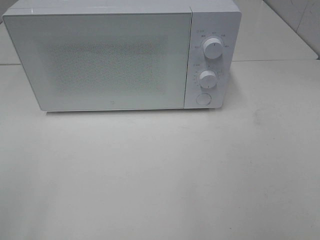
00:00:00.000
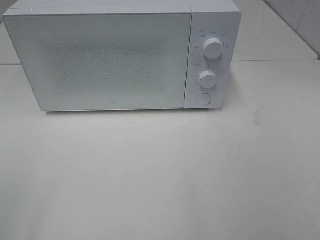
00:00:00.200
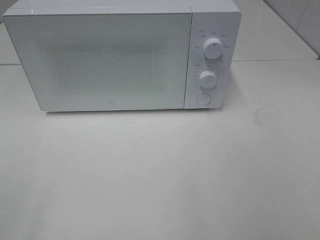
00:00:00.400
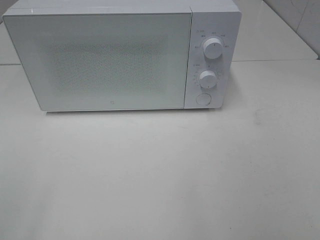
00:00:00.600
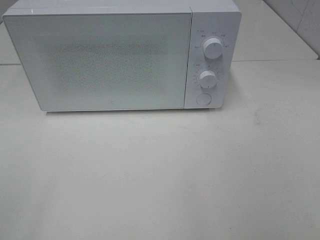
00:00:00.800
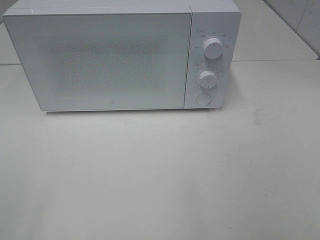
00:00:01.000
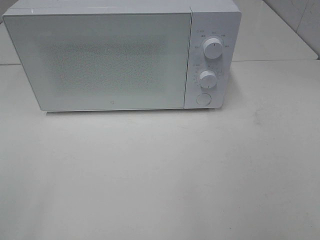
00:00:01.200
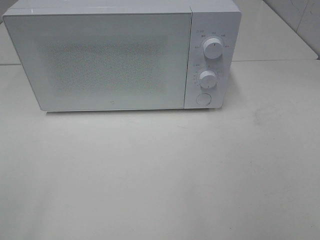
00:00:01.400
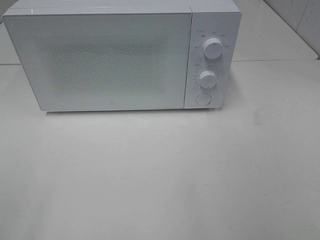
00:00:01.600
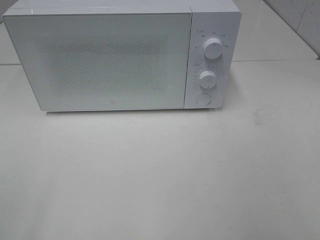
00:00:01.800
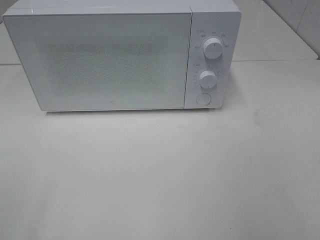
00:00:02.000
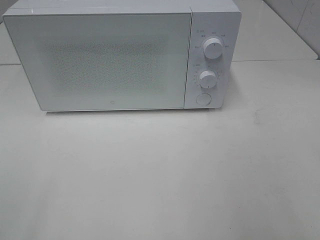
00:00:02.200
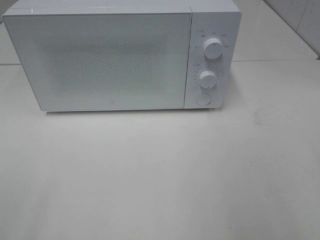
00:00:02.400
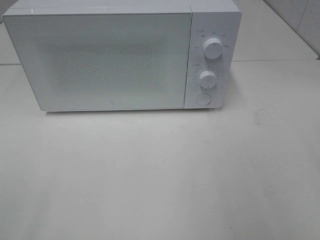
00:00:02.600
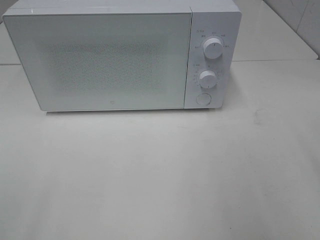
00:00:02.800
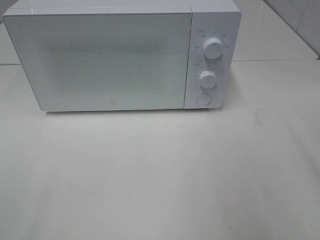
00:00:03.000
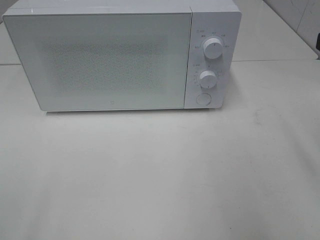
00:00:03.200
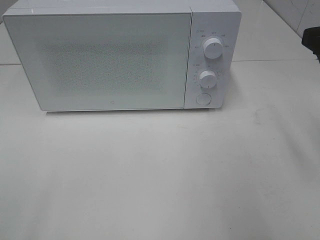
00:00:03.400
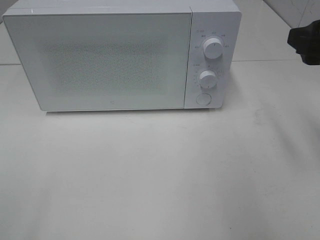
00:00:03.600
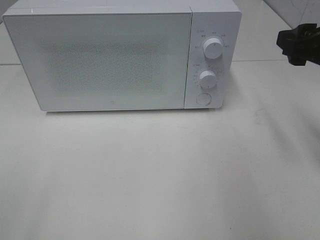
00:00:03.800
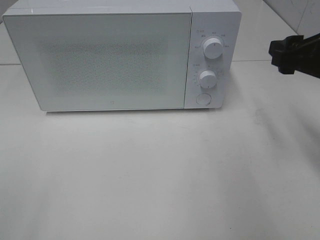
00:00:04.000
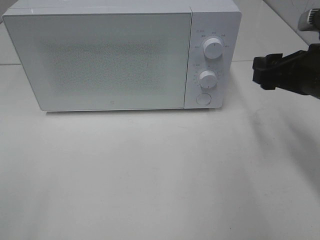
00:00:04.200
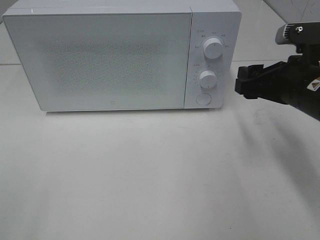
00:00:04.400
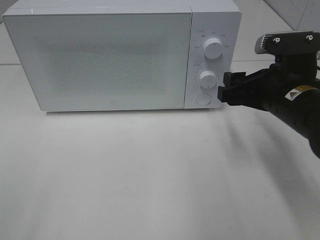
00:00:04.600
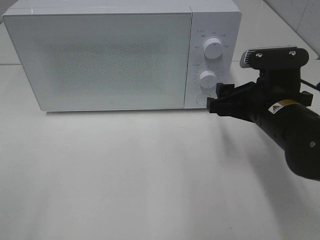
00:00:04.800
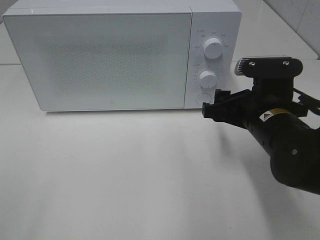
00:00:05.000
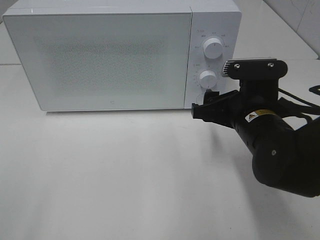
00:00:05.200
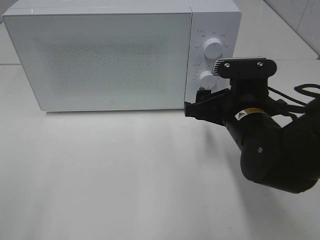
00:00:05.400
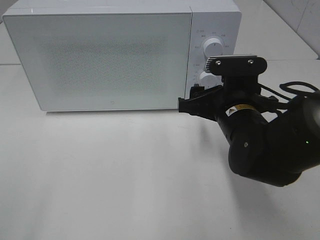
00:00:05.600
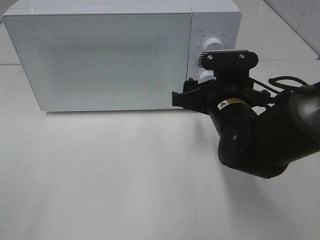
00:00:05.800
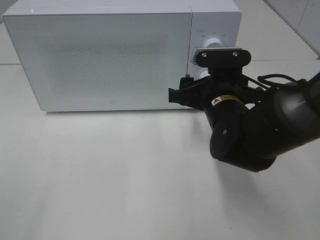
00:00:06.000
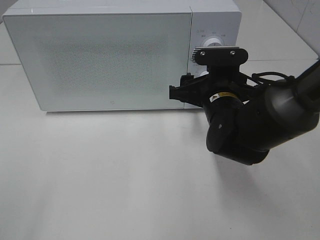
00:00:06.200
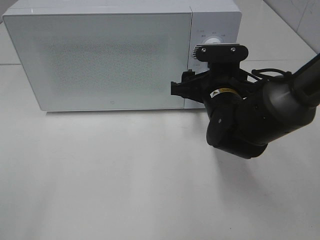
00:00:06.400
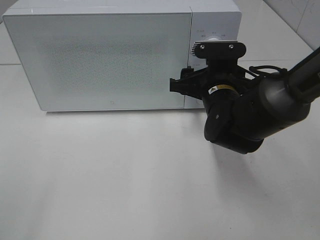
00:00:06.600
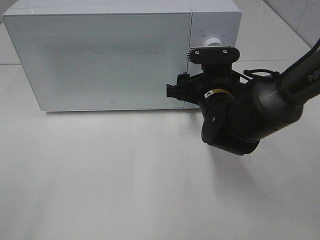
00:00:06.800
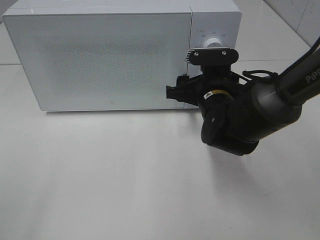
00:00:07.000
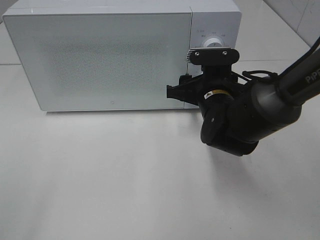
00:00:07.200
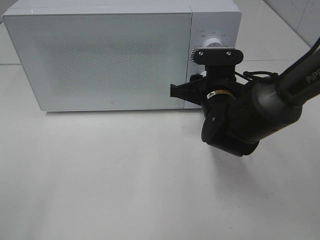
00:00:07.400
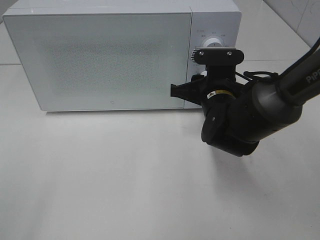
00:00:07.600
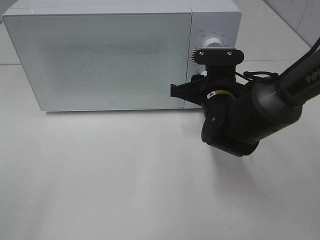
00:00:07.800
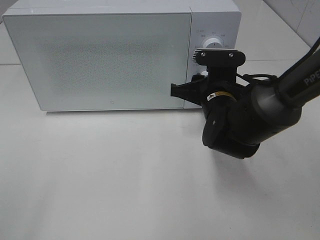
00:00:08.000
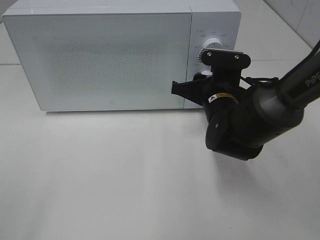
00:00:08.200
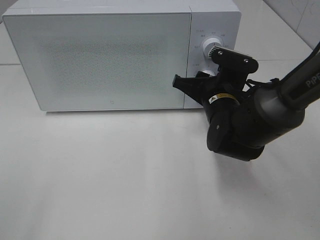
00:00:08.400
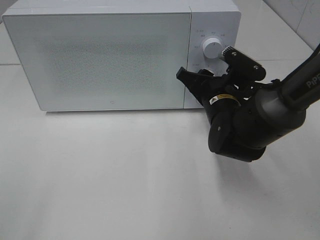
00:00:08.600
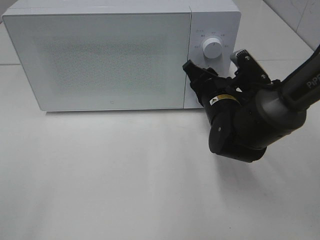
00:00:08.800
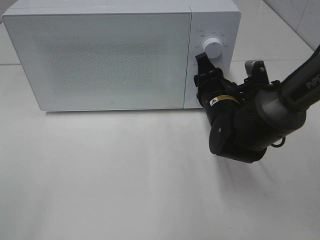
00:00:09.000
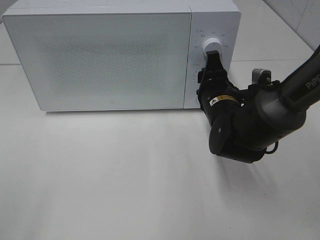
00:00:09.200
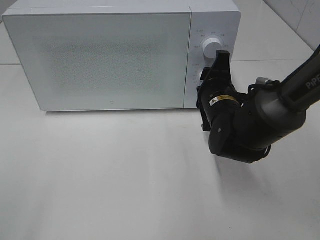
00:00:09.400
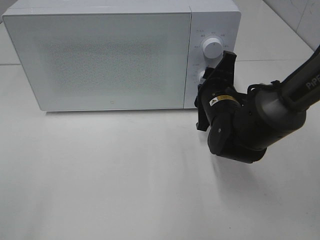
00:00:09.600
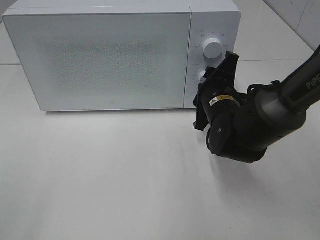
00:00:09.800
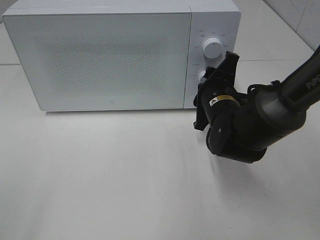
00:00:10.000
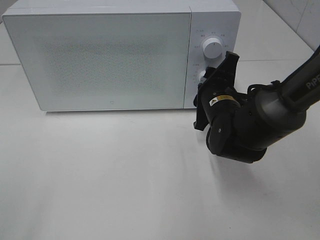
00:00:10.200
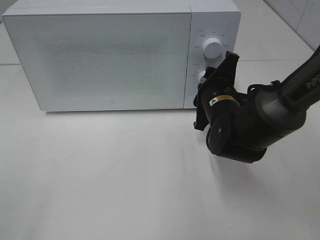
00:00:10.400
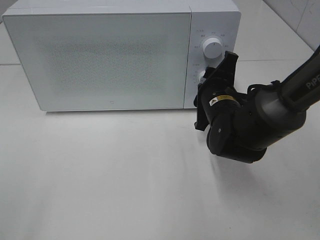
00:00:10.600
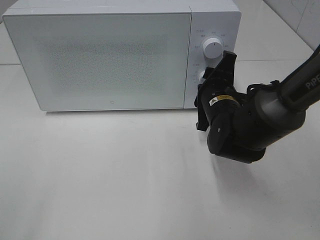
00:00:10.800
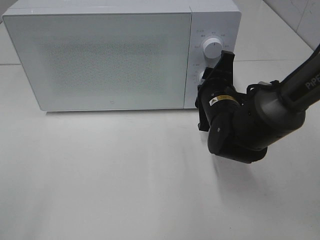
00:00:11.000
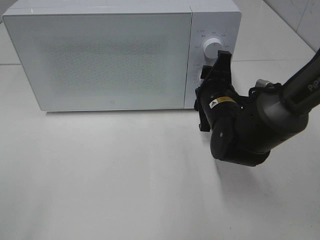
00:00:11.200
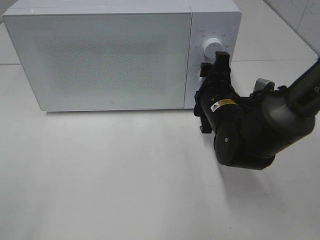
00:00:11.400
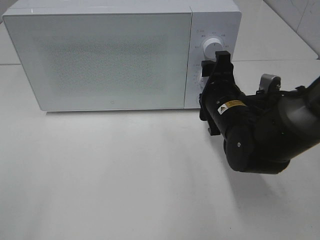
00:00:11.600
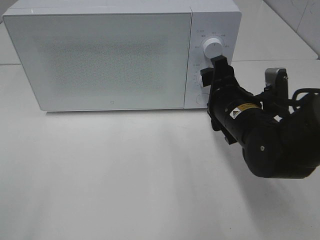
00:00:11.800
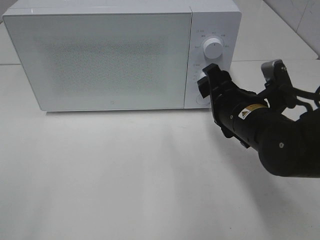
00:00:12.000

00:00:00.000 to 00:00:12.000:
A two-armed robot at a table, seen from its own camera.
Task of the whole recording: Heat the burger.
Step, 00:00:00.000 to 00:00:11.200: Right hand: twist timer button.
00:00:03.000 to 00:00:04.400: The right gripper travels downward, forward and to the left by roughly 15 cm.
00:00:04.400 to 00:00:06.000: The right gripper travels to the left and downward by about 10 cm.
00:00:06.000 to 00:00:07.600: The right gripper closes up.
00:00:10.400 to 00:00:12.000: The right gripper shifts about 5 cm backward.

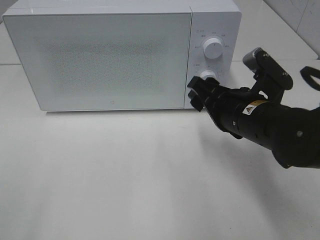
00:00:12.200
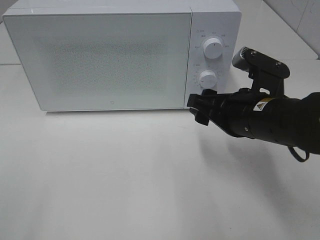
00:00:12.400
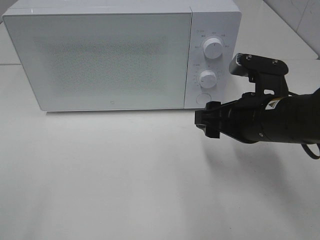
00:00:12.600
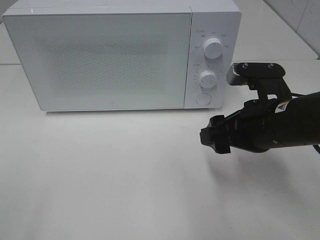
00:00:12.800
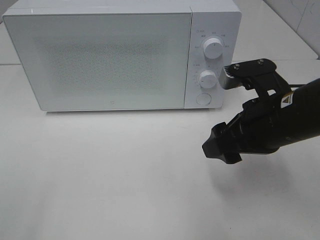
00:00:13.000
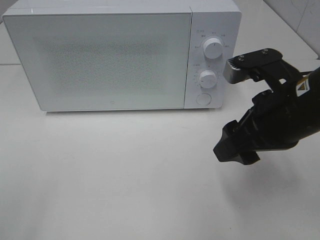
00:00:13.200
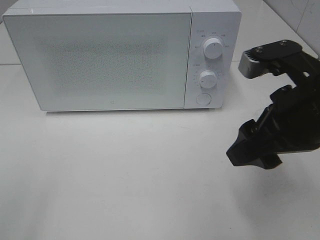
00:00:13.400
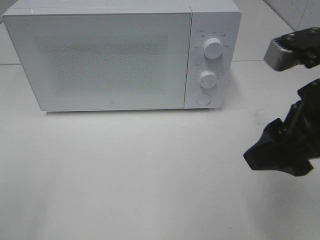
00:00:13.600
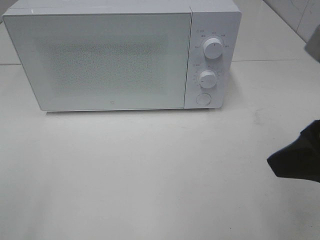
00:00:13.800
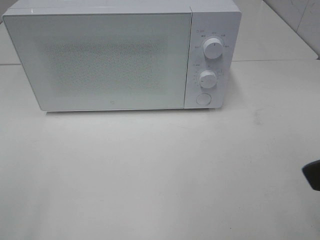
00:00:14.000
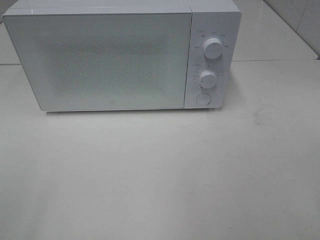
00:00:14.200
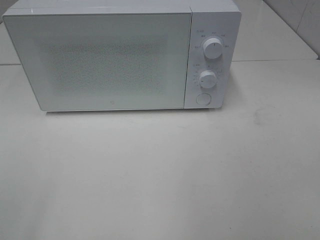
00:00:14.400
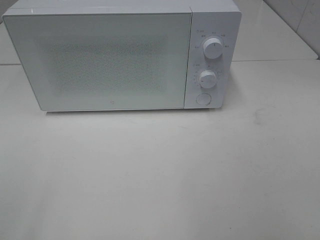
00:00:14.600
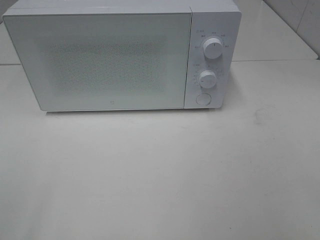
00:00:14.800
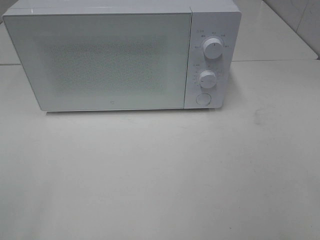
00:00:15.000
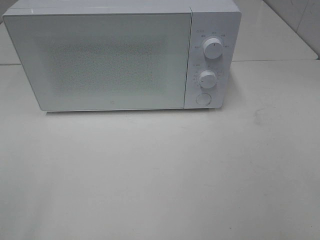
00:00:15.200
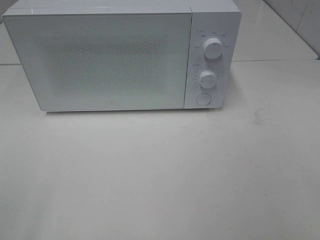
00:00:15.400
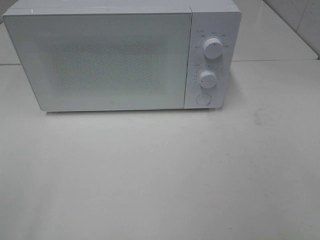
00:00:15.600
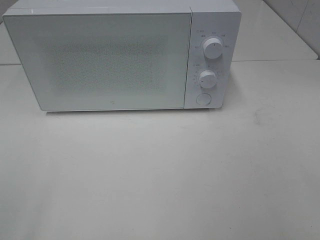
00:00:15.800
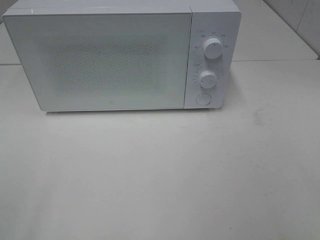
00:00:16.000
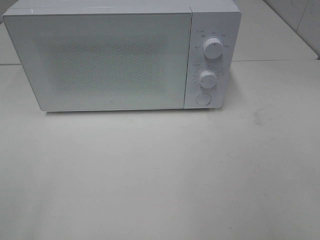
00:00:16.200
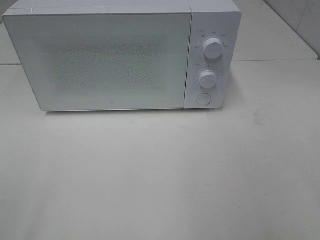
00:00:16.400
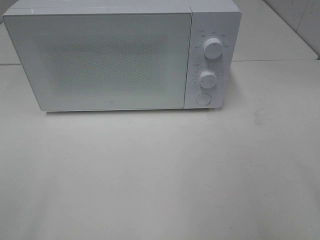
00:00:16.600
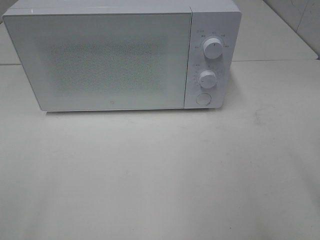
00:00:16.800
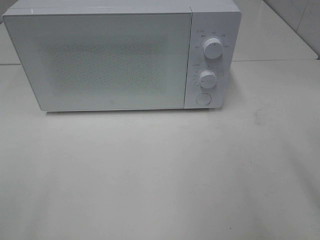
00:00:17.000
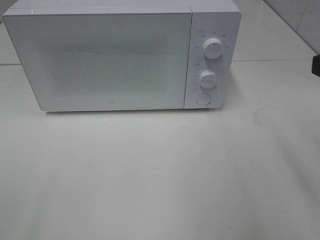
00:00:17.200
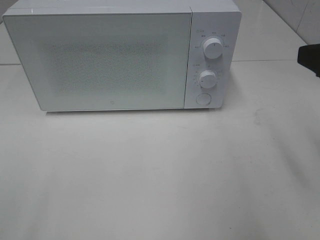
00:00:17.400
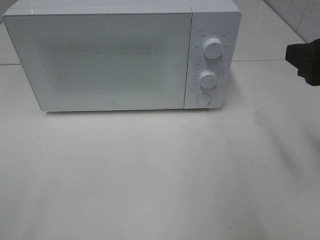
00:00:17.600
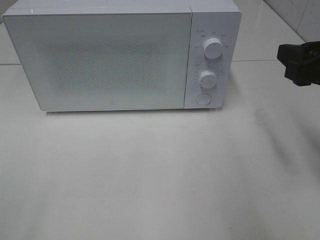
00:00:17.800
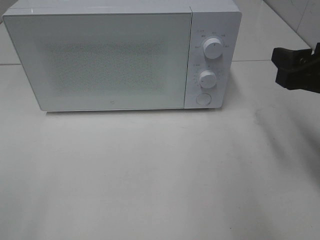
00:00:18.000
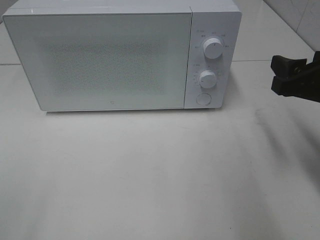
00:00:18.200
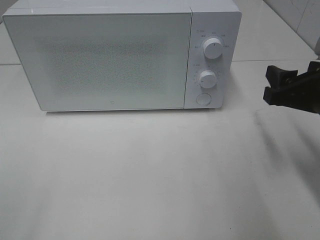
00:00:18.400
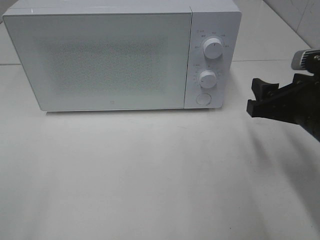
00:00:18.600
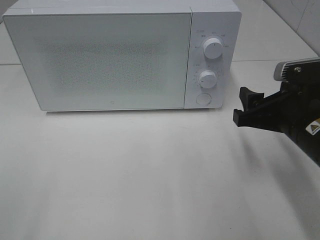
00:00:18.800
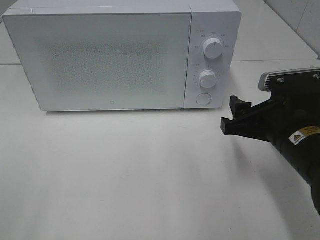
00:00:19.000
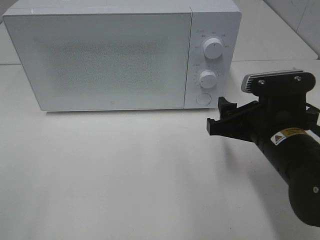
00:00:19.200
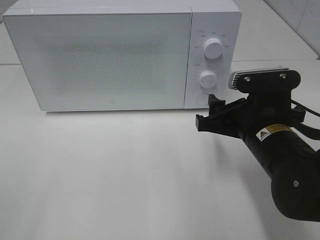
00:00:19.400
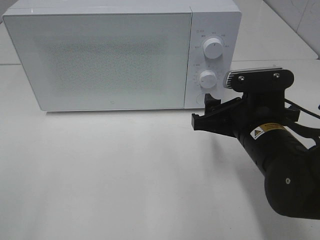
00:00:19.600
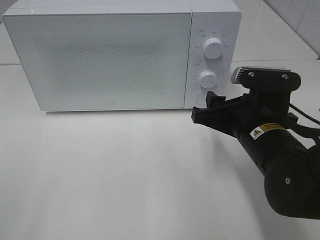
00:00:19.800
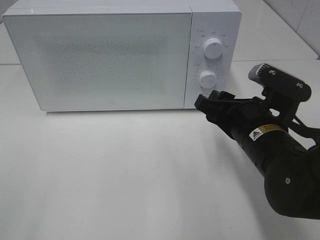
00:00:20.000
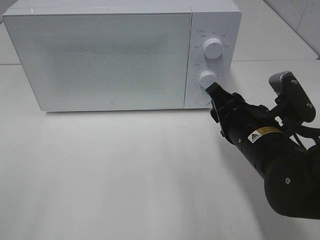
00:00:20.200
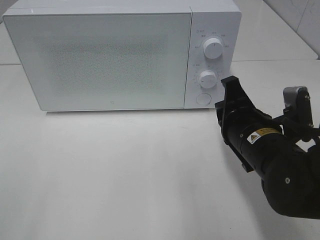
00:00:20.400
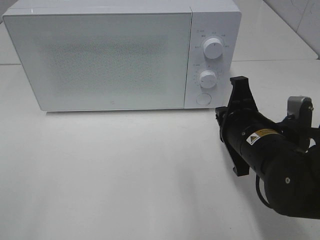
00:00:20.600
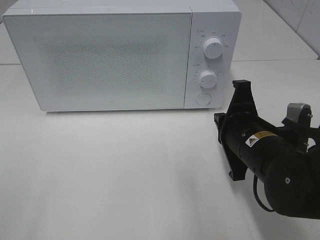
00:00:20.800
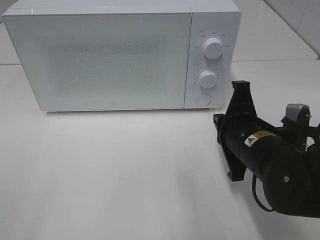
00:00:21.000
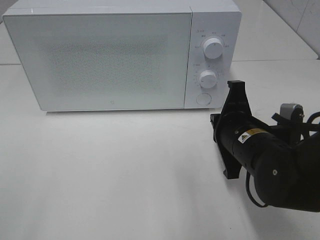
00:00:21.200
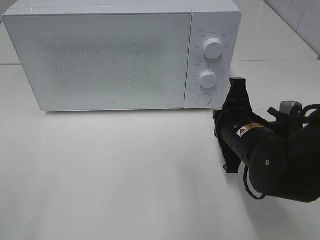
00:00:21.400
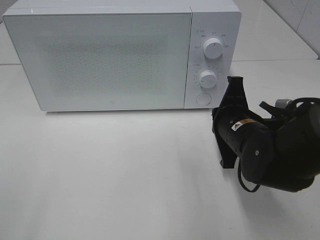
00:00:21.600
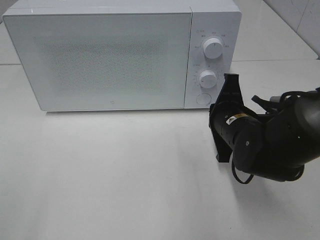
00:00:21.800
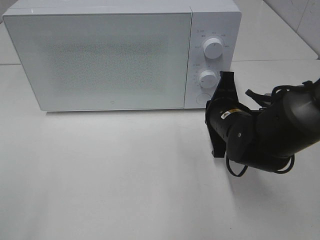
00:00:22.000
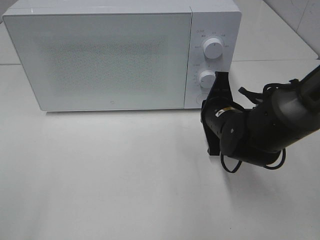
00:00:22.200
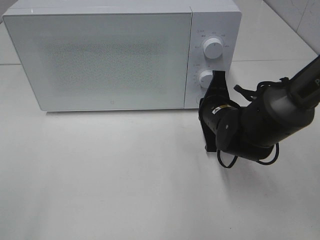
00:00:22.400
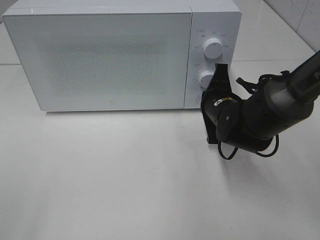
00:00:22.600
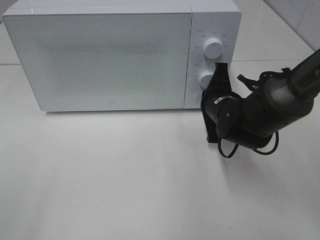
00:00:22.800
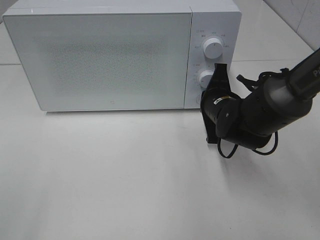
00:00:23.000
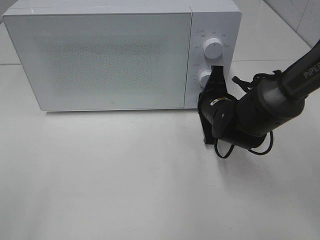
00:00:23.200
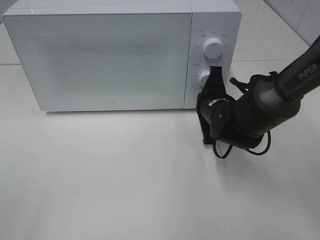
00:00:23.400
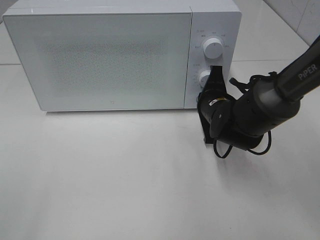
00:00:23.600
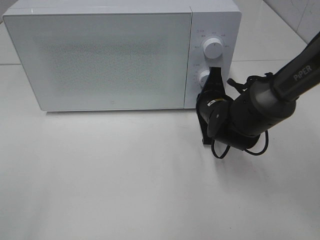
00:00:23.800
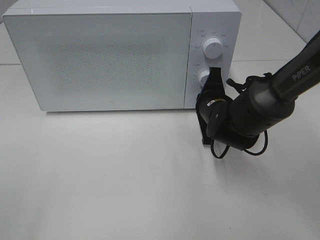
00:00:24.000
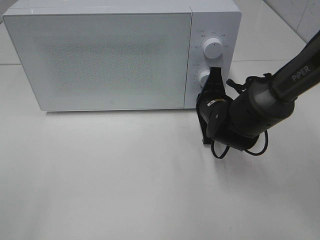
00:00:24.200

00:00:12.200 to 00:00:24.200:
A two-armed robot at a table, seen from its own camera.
Task of the whole recording: Heat the burger.
00:00:12.200 to 00:00:13.800: The right gripper is displaced upward, backward and to the right by approximately 20 cm.
00:00:13.800 to 00:00:15.200: The right gripper heads backward and to the right, covering some 15 cm.
00:00:16.600 to 00:00:18.200: The right gripper shifts about 20 cm forward and downward.
00:00:18.200 to 00:00:19.800: The right gripper travels to the left and downward by some 10 cm.
00:00:19.800 to 00:00:21.200: The right gripper closes up.
00:00:21.200 to 00:00:22.600: The right gripper goes approximately 10 cm forward.
00:00:22.600 to 00:00:24.200: The grippers make only small movements.
